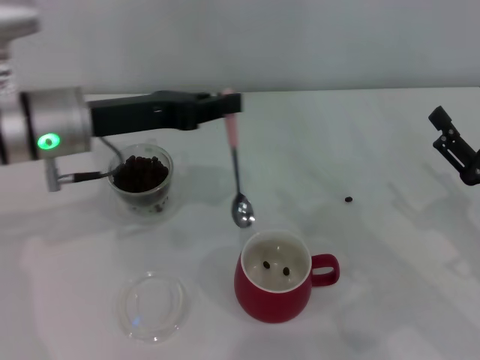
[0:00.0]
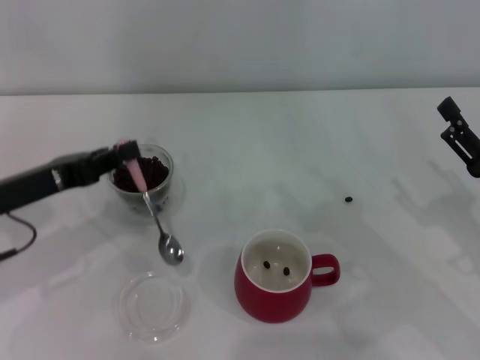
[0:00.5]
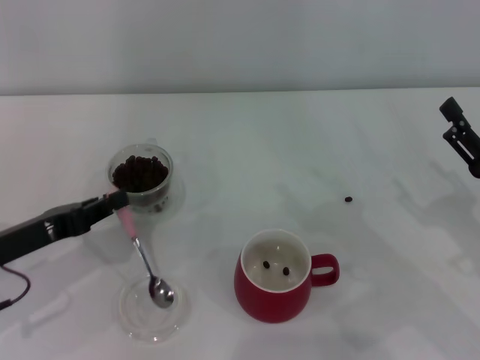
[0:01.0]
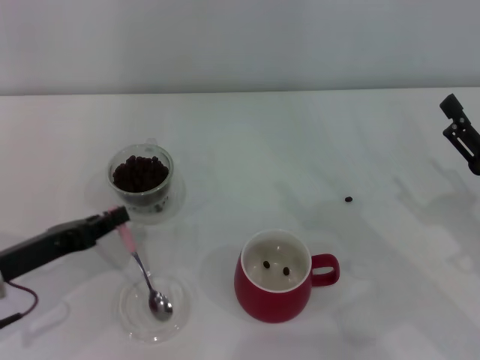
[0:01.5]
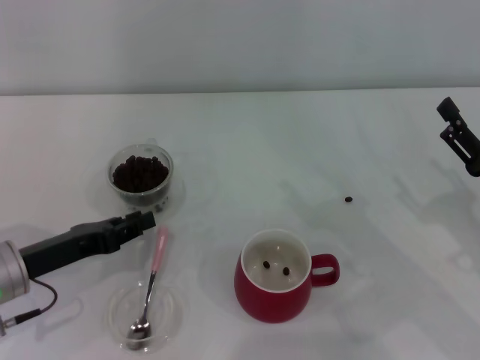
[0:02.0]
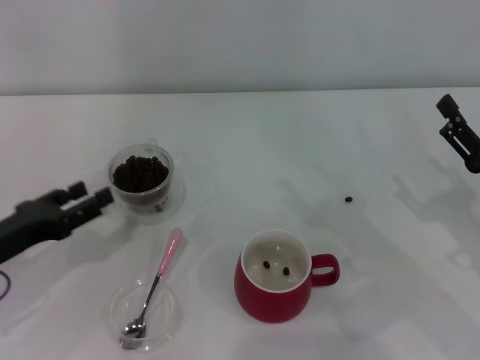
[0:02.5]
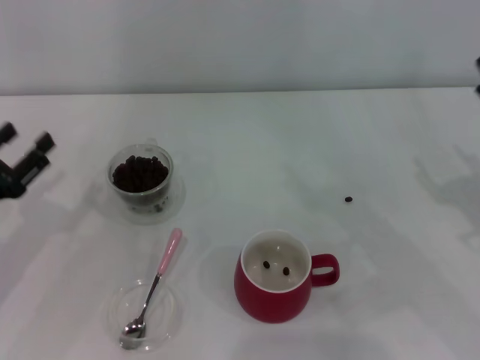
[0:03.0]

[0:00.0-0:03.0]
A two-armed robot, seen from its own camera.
Task of the whole recording: Use a pink spoon to take out the coffee beans from the glass and pour them into the red cup.
0:00.0 to 0:01.5: The left gripper heads downward, to the left and backward, covering some 15 cm.
0:01.5 to 0:03.0: The left gripper opens.
